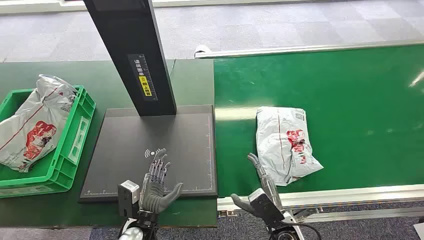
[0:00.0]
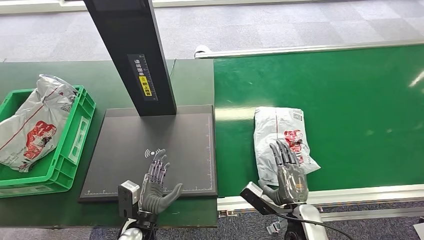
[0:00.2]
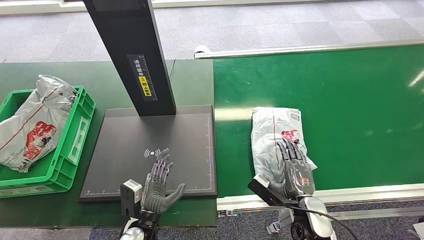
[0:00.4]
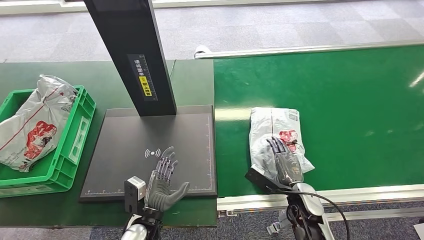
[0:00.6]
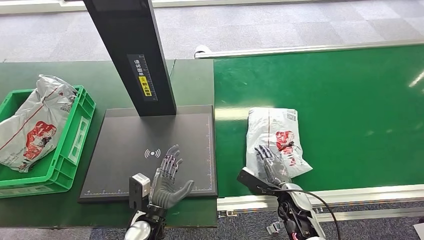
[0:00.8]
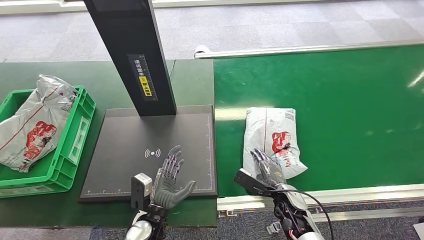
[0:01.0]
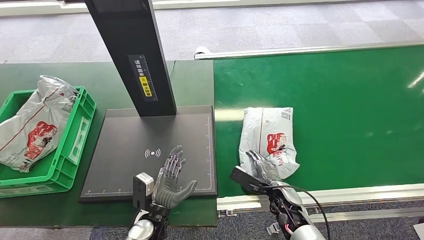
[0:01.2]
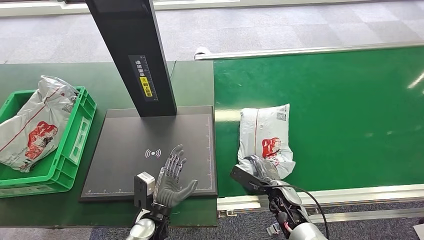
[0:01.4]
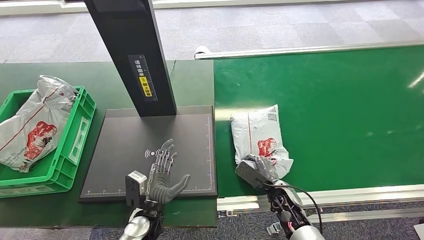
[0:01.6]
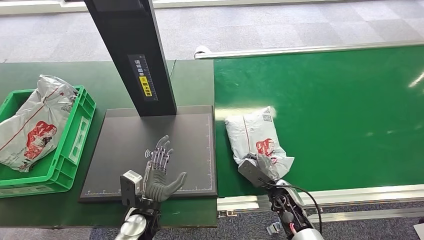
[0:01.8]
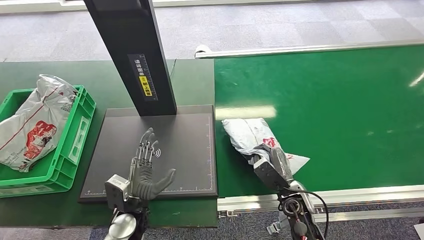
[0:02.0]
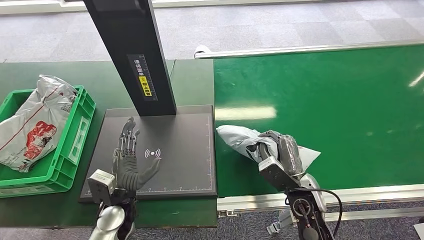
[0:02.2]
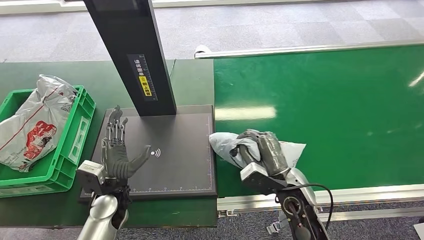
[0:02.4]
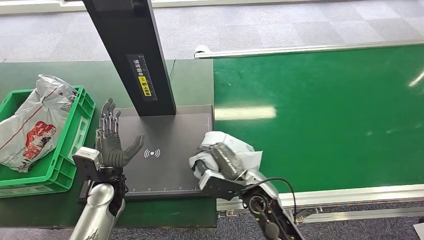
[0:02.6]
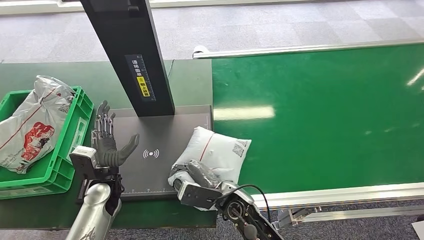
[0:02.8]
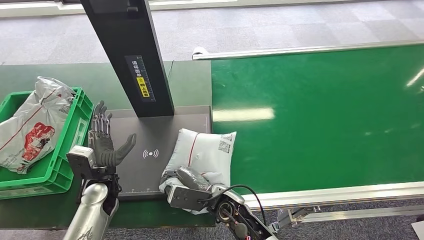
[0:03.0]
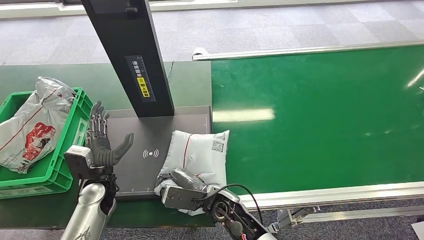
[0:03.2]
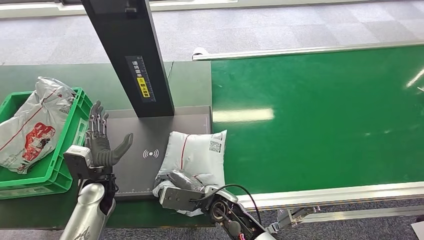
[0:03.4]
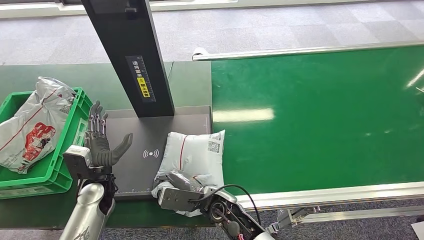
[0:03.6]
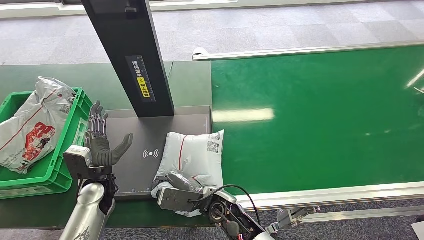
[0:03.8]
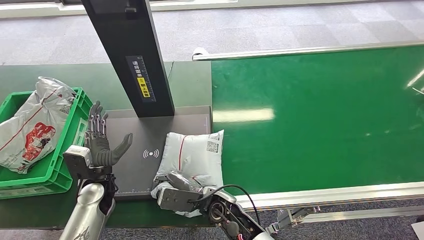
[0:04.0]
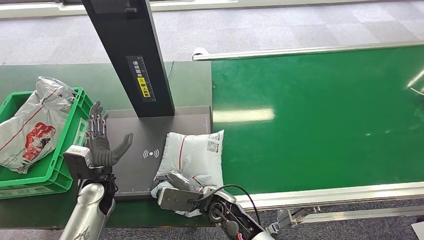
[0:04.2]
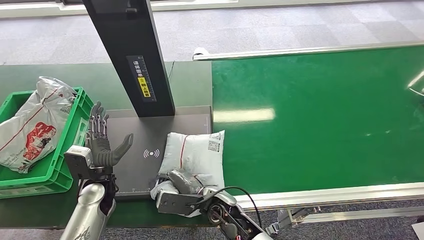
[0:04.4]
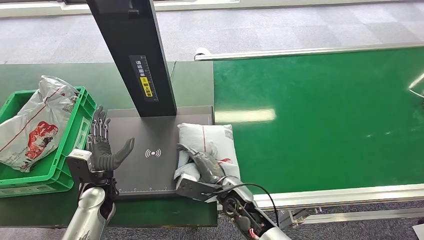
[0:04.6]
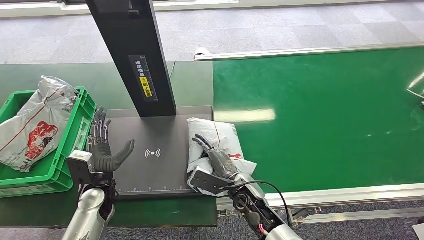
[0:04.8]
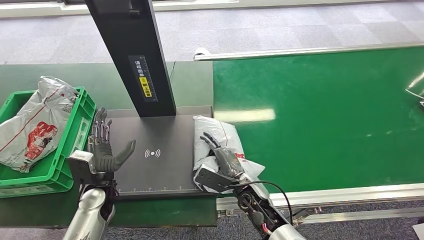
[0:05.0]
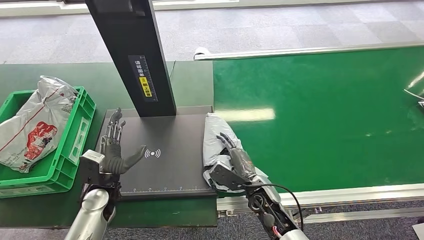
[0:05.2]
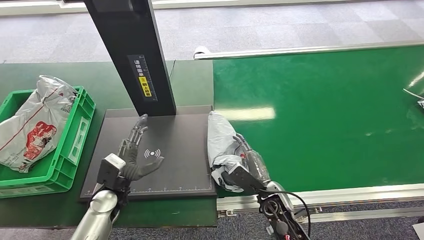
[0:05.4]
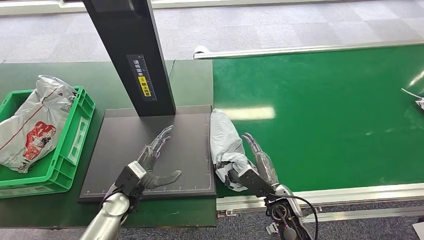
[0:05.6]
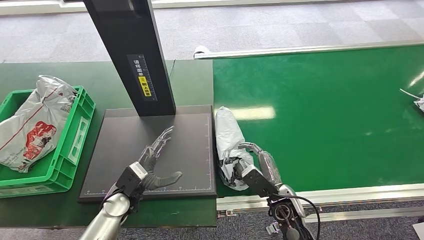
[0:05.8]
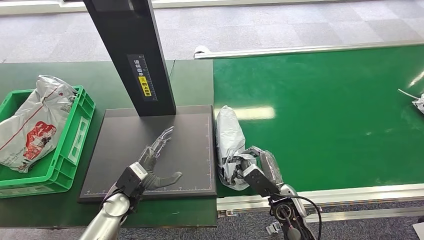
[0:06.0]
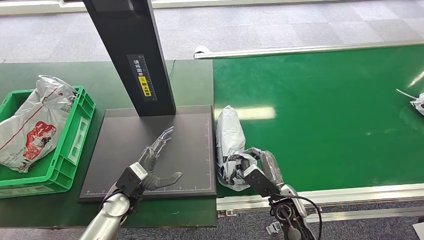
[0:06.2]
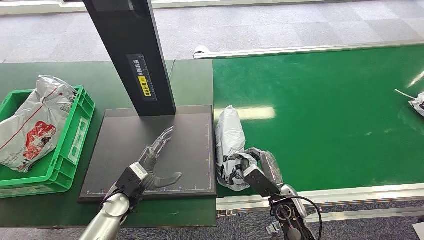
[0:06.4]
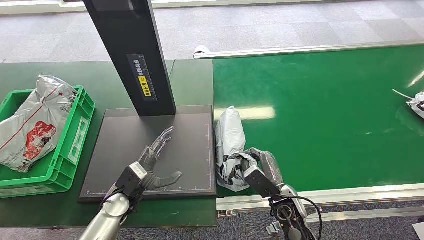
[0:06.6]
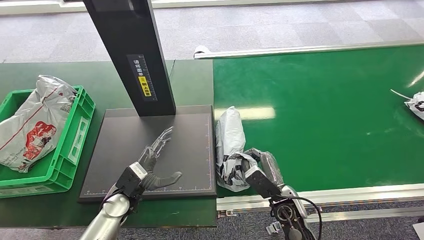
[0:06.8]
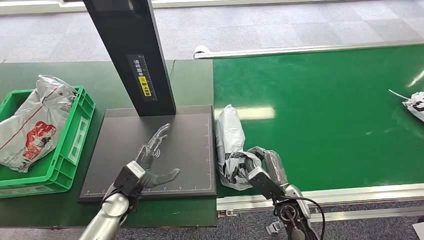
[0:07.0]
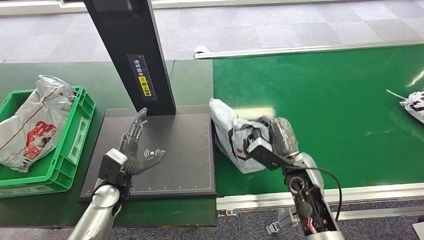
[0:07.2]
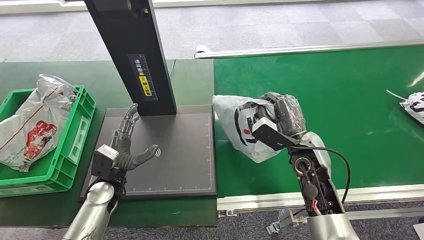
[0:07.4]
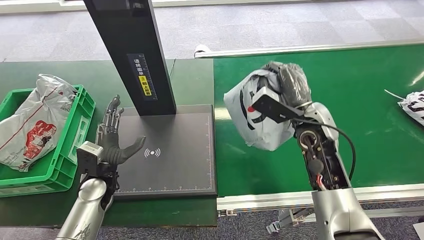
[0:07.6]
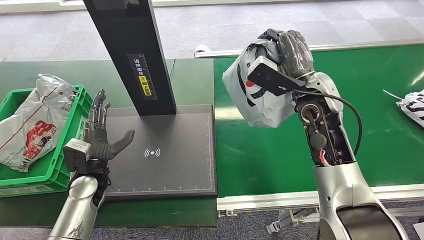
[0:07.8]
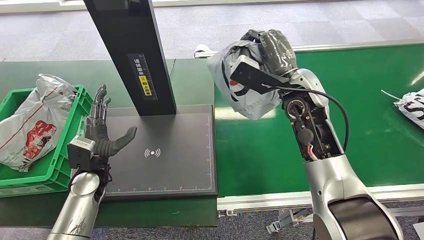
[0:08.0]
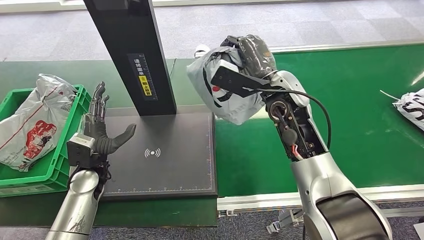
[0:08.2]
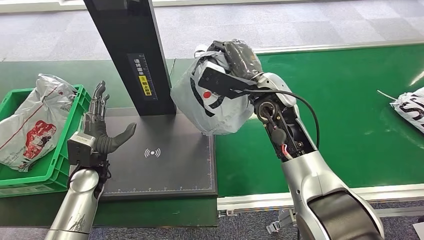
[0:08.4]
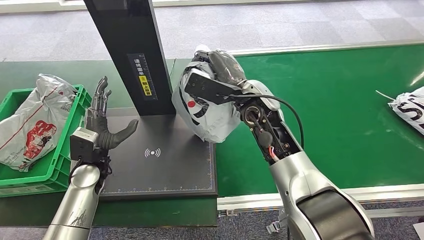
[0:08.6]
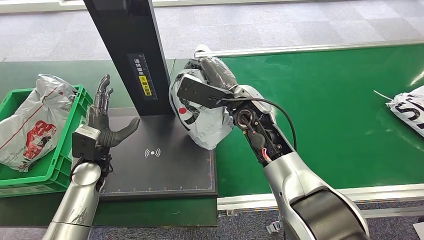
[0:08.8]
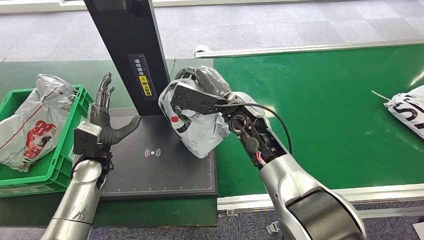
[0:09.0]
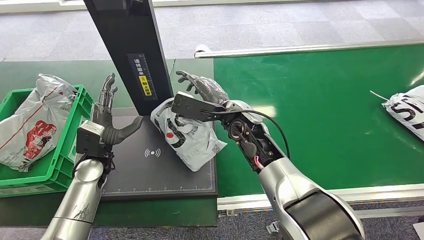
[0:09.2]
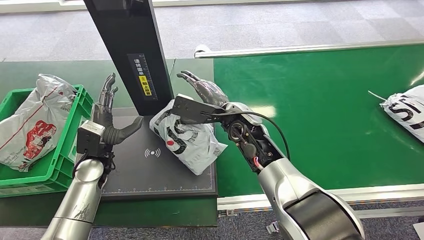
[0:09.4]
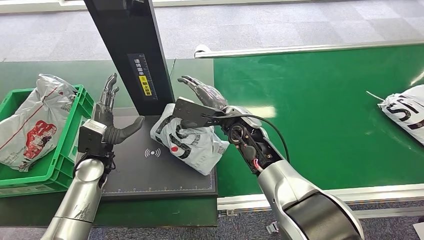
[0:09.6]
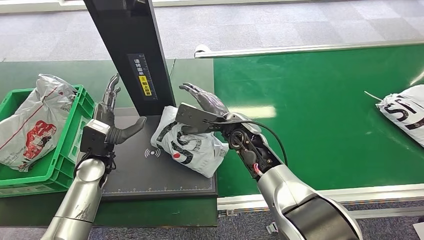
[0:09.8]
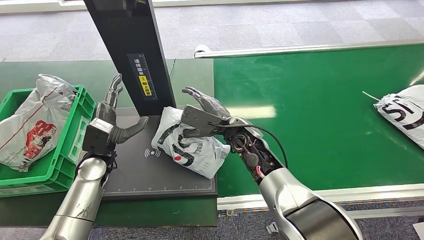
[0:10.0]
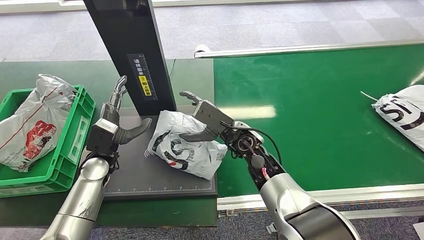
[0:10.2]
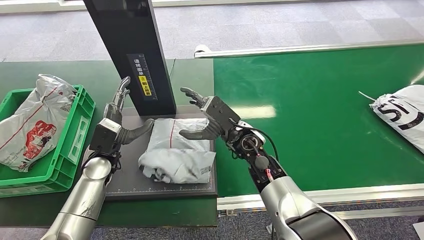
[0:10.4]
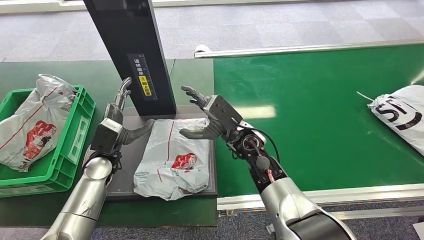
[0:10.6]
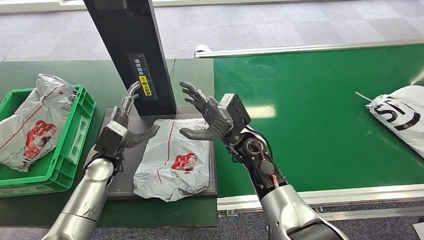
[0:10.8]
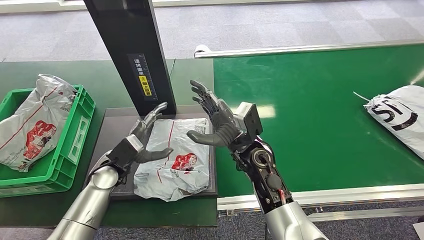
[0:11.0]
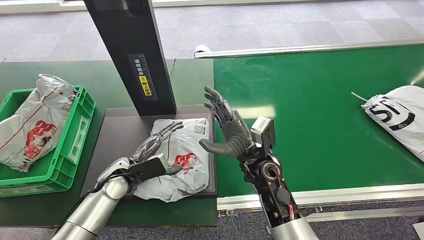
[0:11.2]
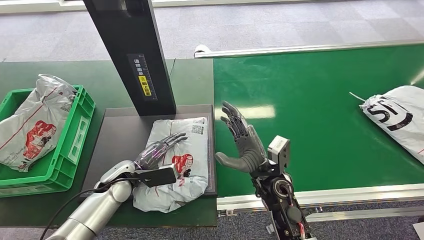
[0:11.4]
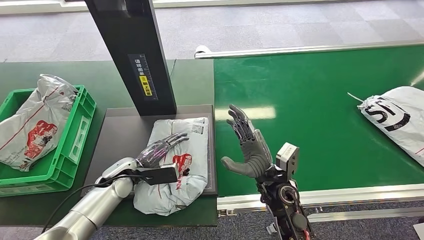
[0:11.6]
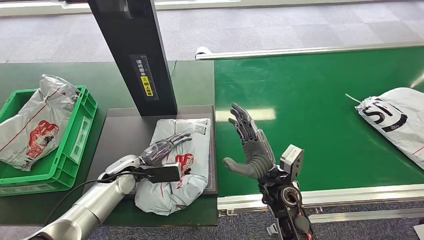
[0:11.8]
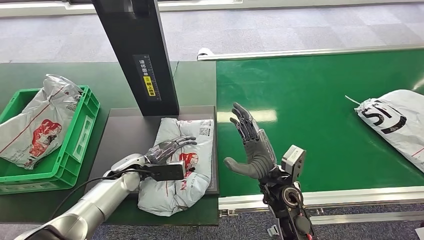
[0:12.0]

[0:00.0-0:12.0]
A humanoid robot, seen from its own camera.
Step, 0.0 to 2.2 s: Pick up the package from the conveyor belt.
Step, 2.6 to 11.2 s: Place the package onto the inbound machine.
3.0 to 4.4 s: The hands move only a little.

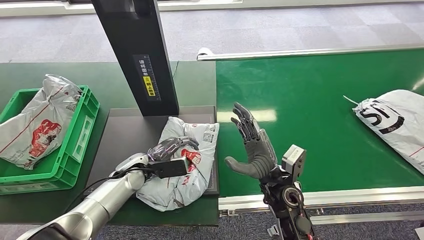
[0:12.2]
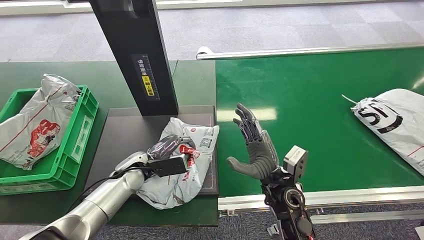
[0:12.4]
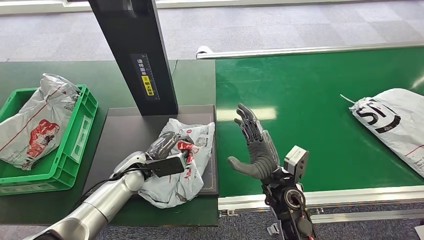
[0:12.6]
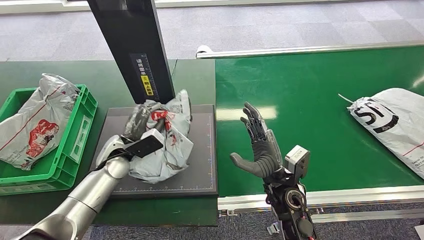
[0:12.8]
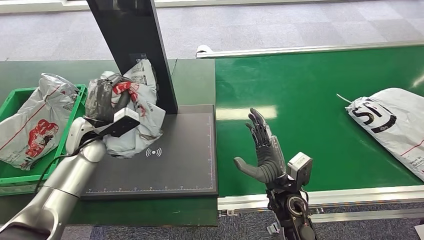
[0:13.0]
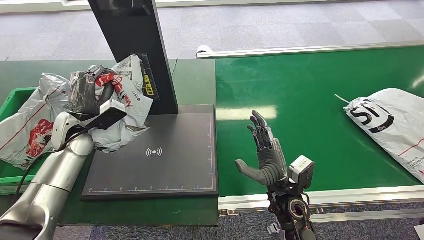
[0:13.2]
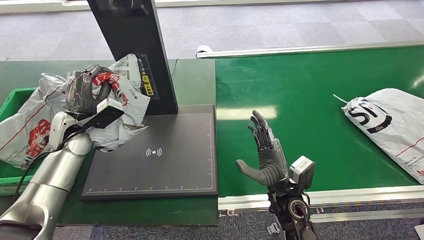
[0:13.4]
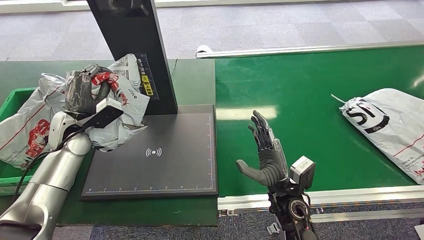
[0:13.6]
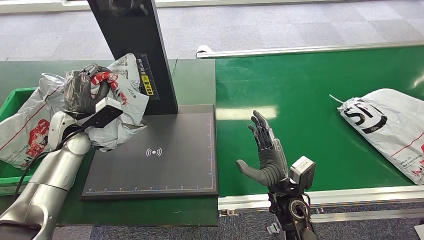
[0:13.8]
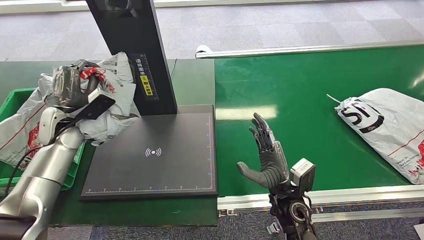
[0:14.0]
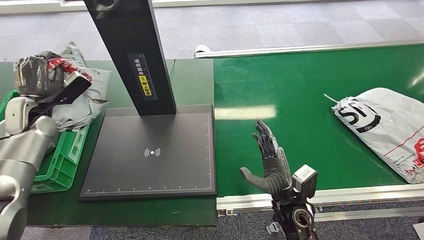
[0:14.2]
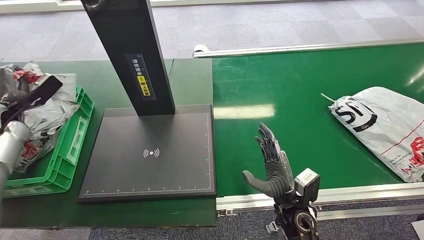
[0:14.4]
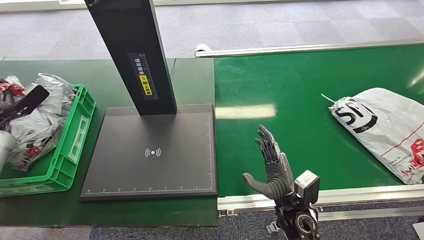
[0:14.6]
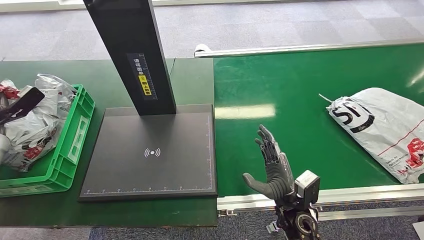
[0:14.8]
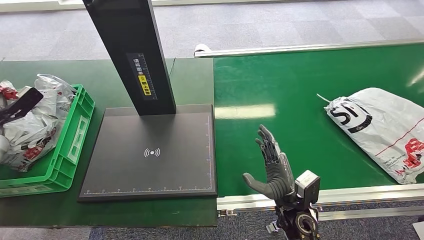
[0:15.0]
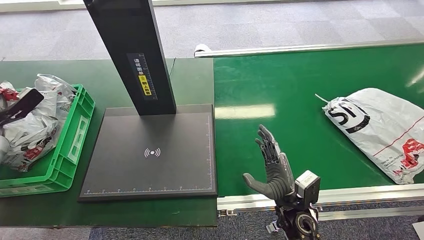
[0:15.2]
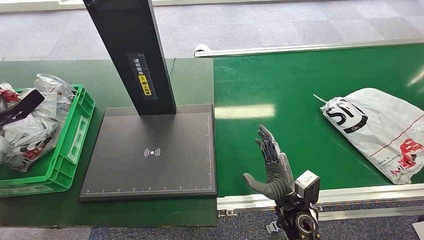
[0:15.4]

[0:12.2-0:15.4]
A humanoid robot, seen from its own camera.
Step, 13.0 to 15.4 s: Place the package into the parcel locker.

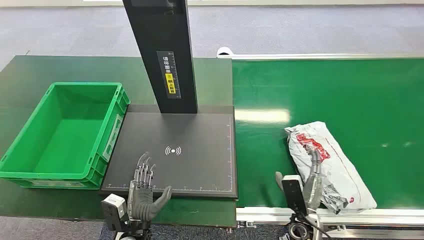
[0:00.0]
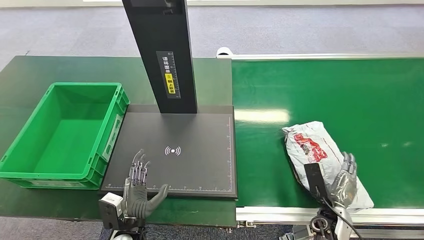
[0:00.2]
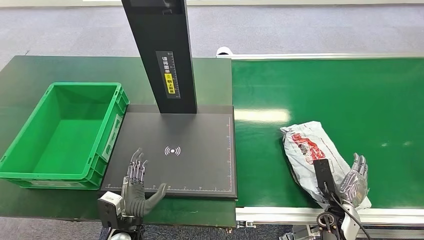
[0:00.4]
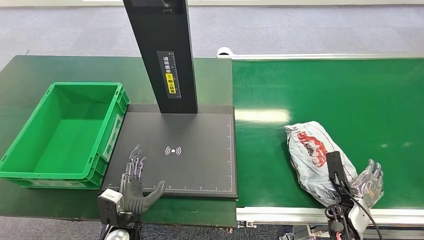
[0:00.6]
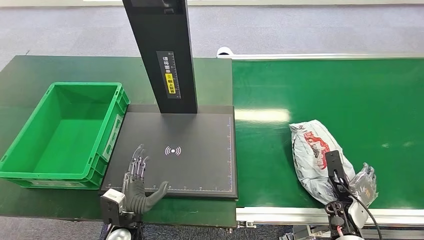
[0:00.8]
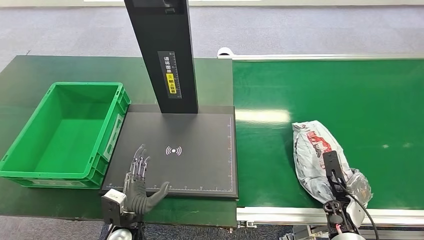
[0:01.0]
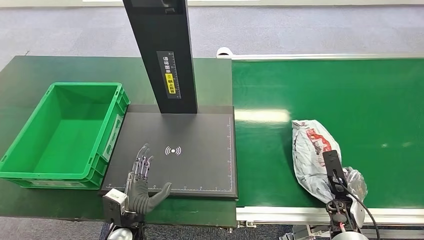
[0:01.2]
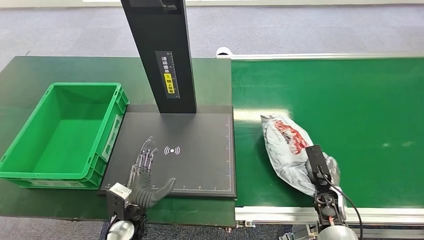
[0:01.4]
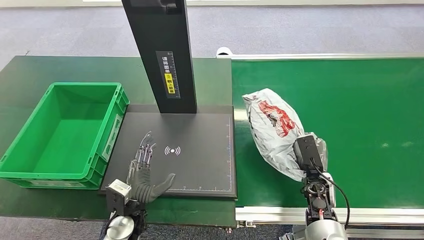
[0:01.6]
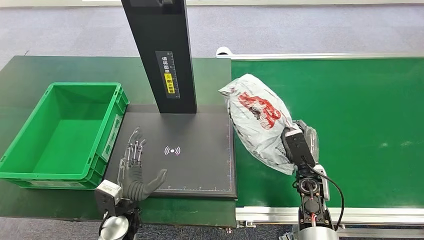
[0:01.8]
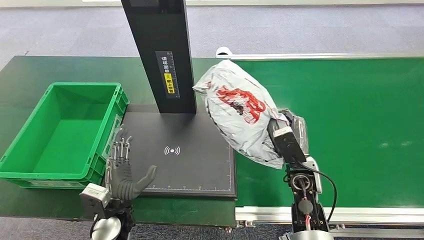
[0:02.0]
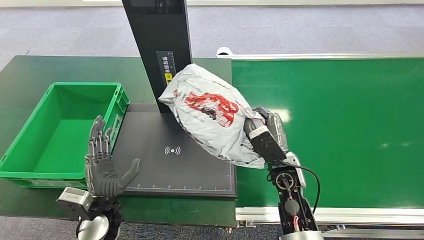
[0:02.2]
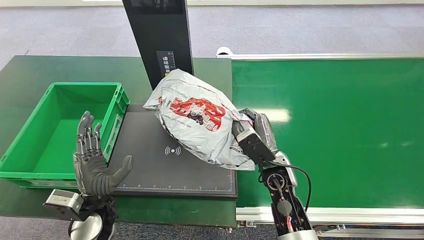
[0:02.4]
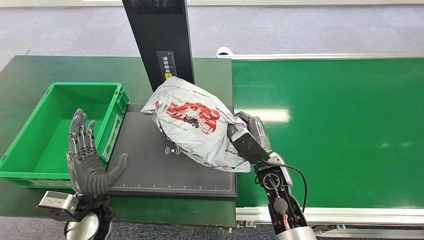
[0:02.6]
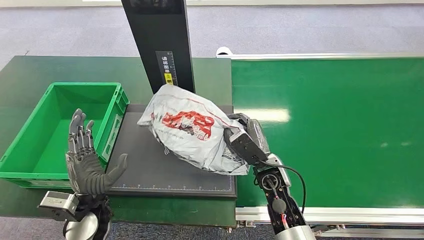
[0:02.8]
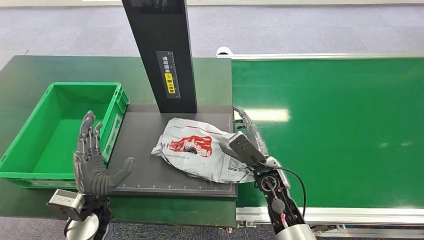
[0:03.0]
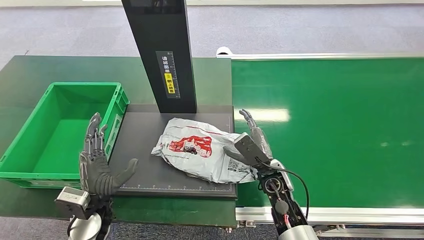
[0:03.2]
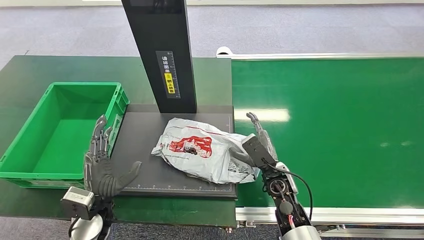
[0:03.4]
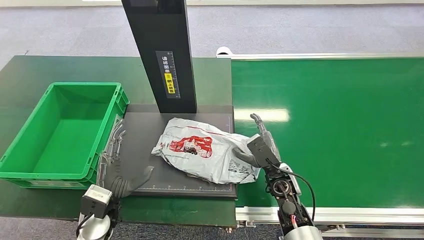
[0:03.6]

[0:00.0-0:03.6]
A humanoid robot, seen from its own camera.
Step, 0.0 to 1.6 s: Pick up the package from the conveyor belt.
Step, 1.8 to 3.0 s: Place the package onto the inbound machine.
1.8 to 3.6 s: The right hand travels to the left by roughly 5 cm. Meanwhile the left hand changes place by roughly 5 cm.
